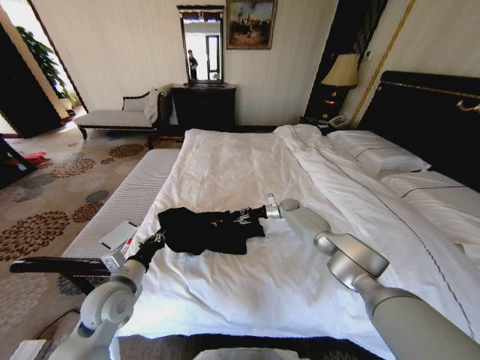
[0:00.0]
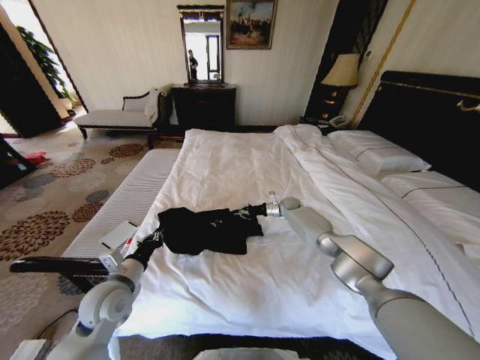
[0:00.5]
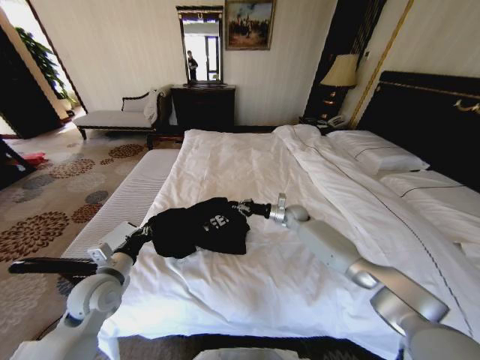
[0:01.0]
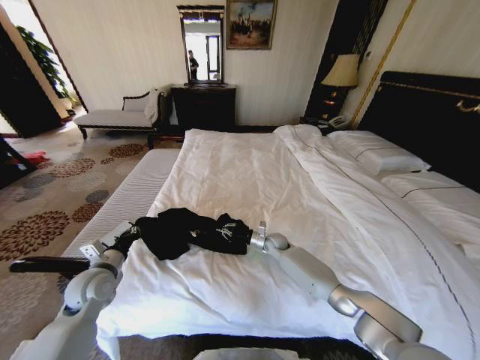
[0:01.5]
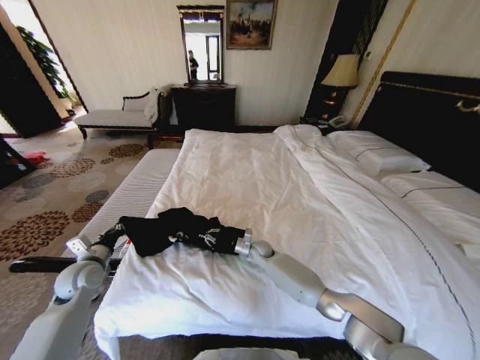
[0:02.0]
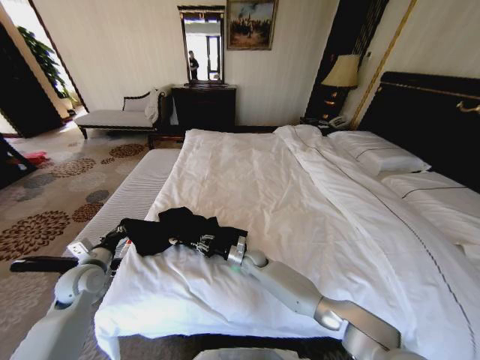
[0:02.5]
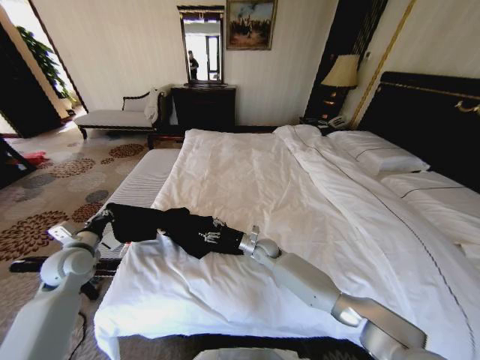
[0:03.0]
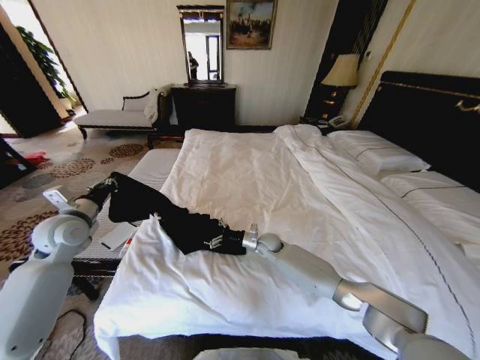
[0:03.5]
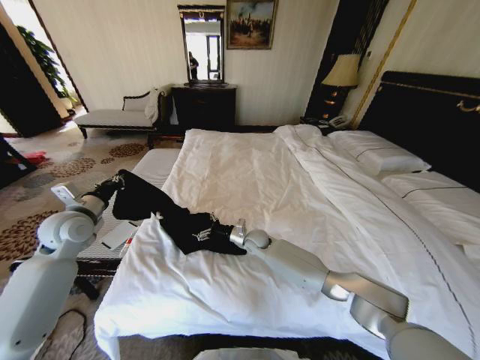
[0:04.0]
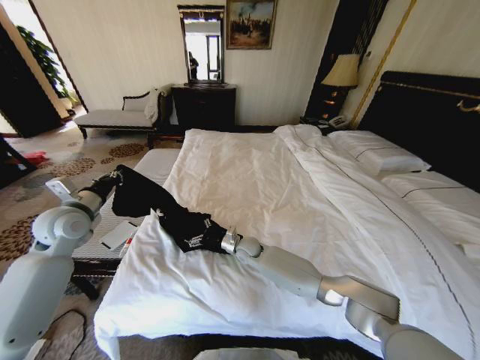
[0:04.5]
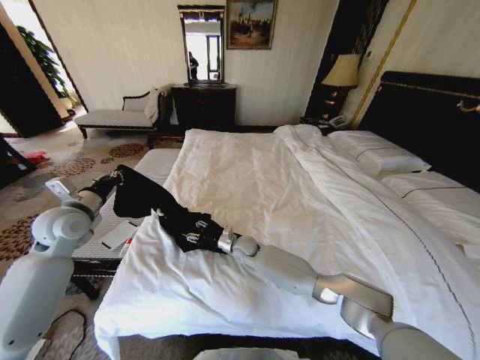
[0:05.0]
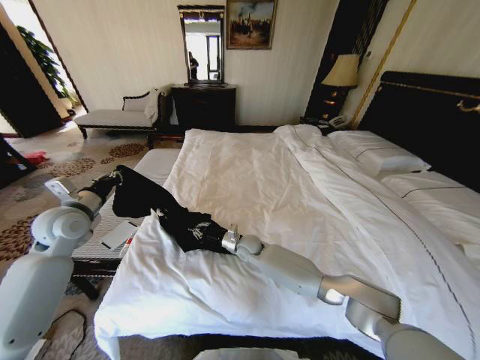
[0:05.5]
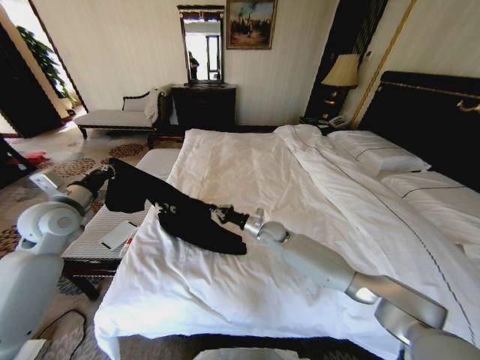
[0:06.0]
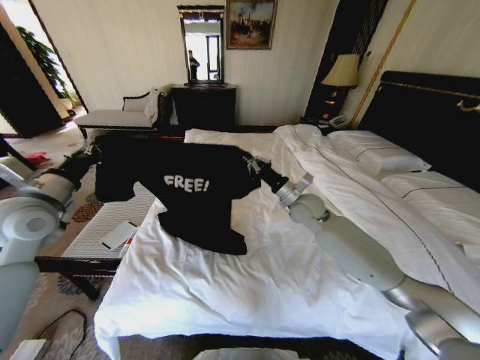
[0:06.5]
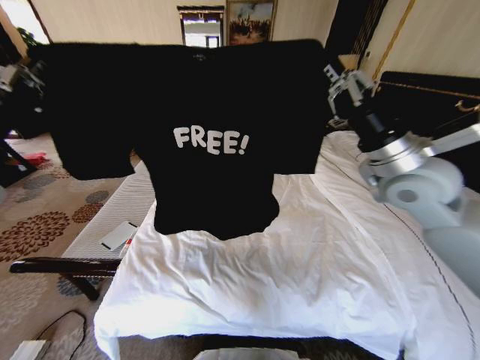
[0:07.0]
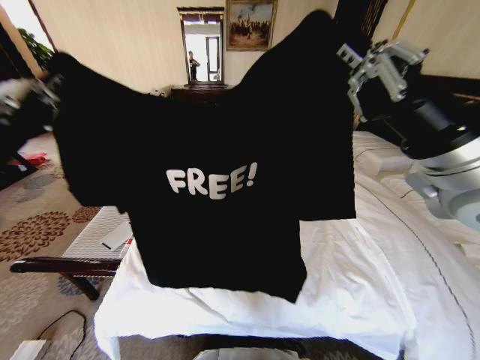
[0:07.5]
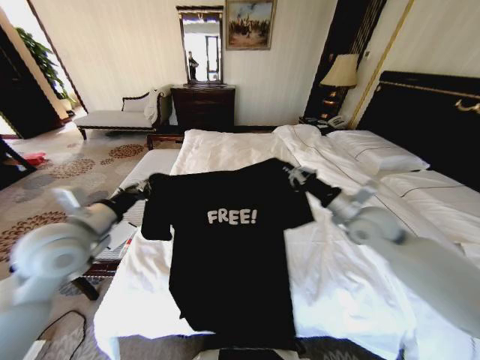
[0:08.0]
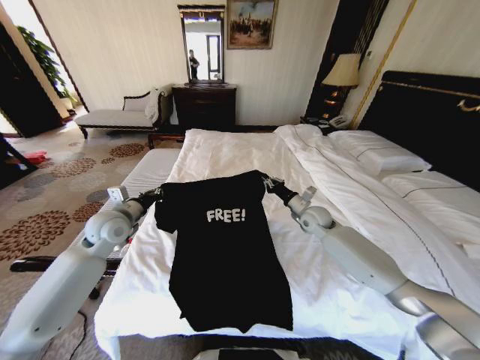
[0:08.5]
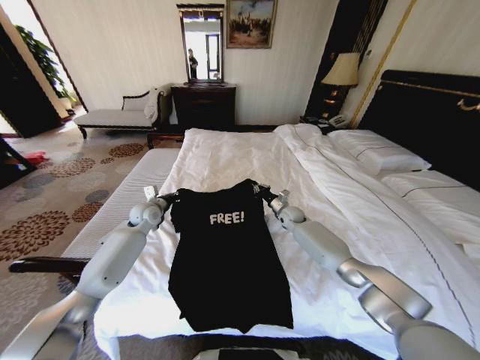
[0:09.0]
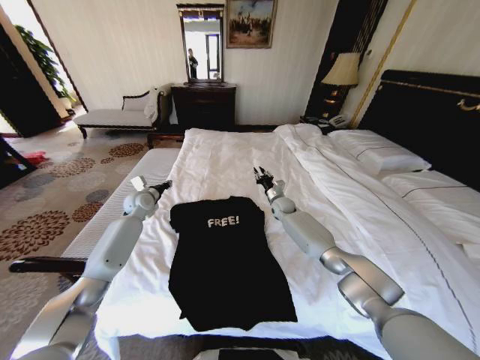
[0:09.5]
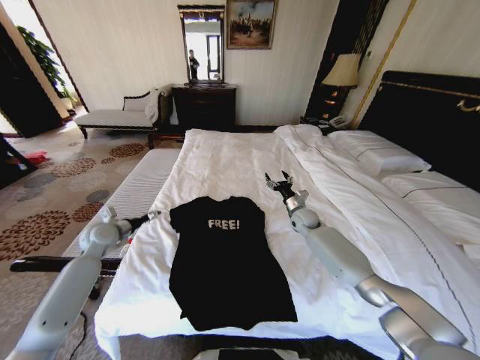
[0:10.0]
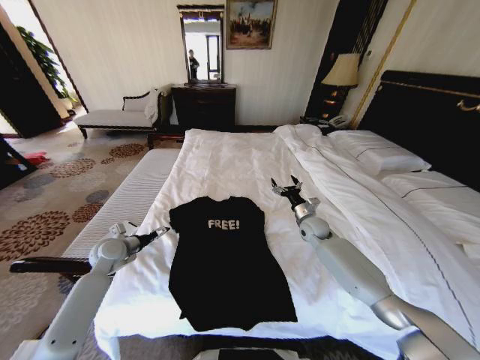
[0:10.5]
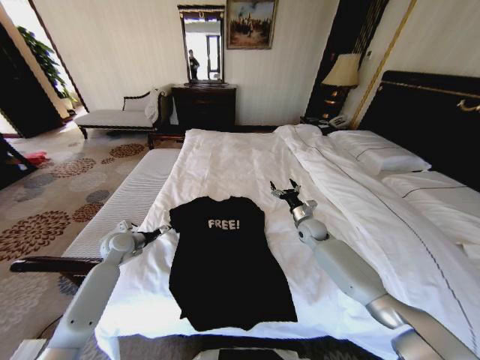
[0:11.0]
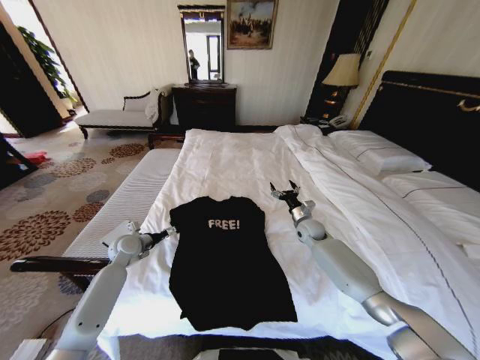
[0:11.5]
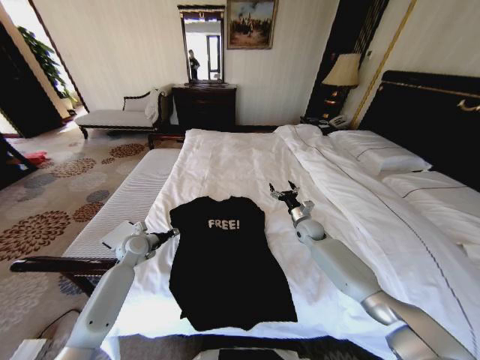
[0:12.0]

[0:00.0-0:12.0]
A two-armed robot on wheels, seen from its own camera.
Task of the whole recording: Fold the clothes on the bed.
0:00.0 to 0:02.0: The left gripper heads to the left and forward, covering about 15 cm. The right gripper goes approximately 25 cm backward, to the left and downward, and closes its fingers.
0:02.0 to 0:04.0: The left gripper goes some 15 cm upward and forward; the right gripper heads upward, covering approximately 5 cm, and opens.
0:04.0 to 0:06.0: The right gripper heads upward and to the right, covering about 10 cm, and closes up.
0:06.0 to 0:08.0: The left gripper shifts approximately 15 cm to the right and backward, while the right gripper travels to the right, upward and backward by approximately 30 cm.
0:08.0 to 0:10.0: The right gripper shifts approximately 25 cm downward and forward, and opens its fingers. The left gripper moves downward, forward and to the left, approximately 25 cm, and opens up.
0:10.0 to 0:12.0: The left gripper moves downward and to the right, about 10 cm, and closes up.

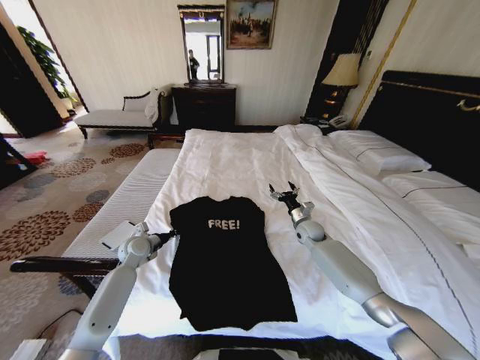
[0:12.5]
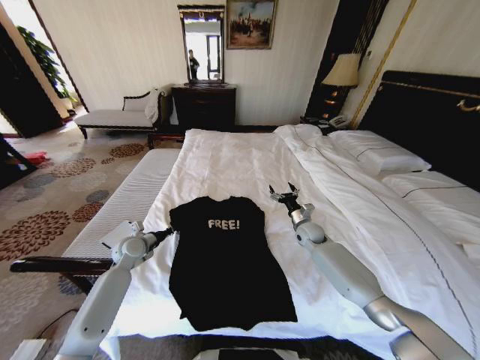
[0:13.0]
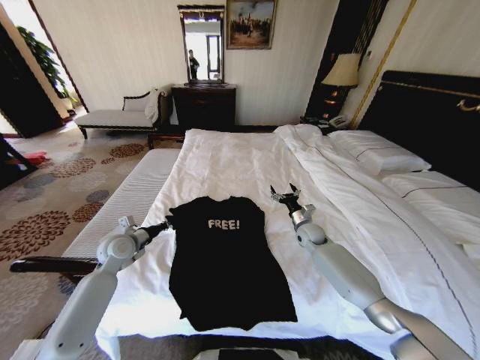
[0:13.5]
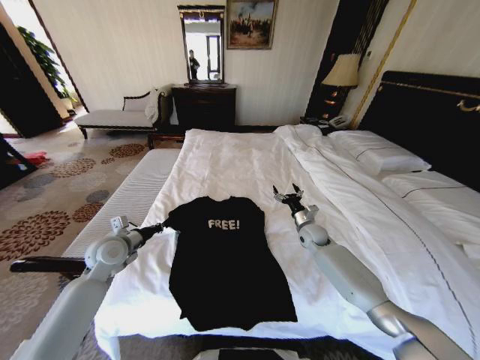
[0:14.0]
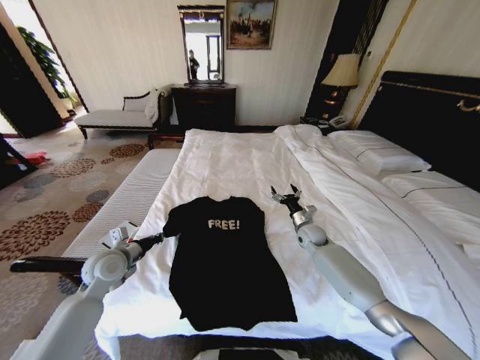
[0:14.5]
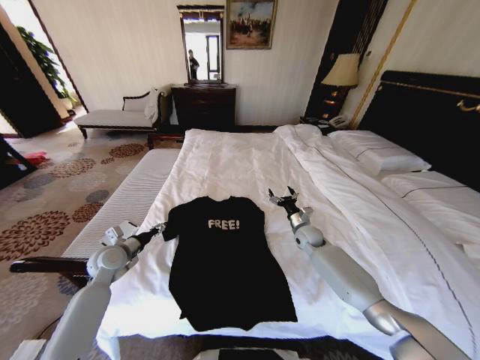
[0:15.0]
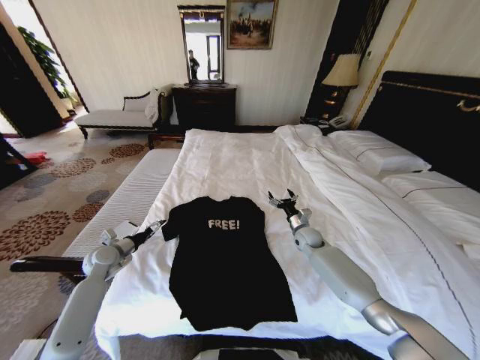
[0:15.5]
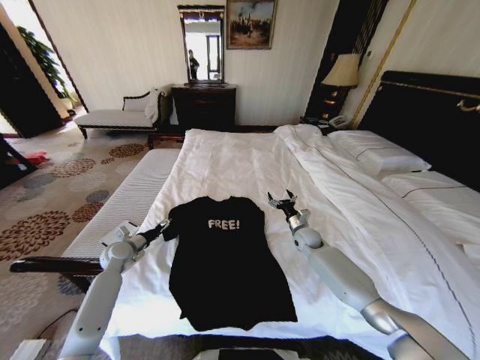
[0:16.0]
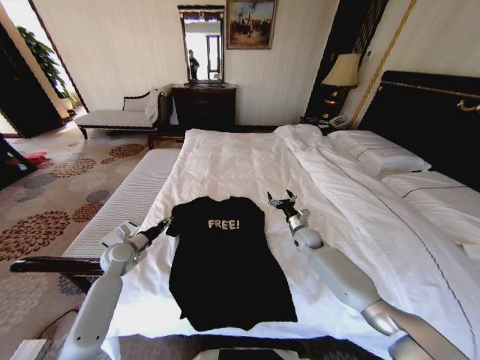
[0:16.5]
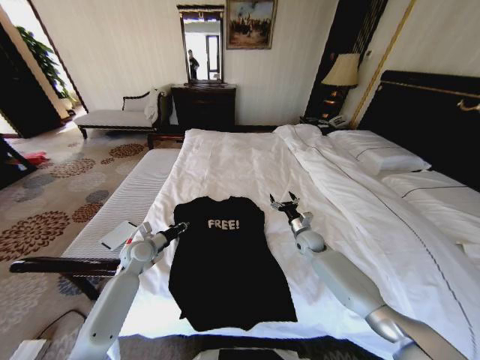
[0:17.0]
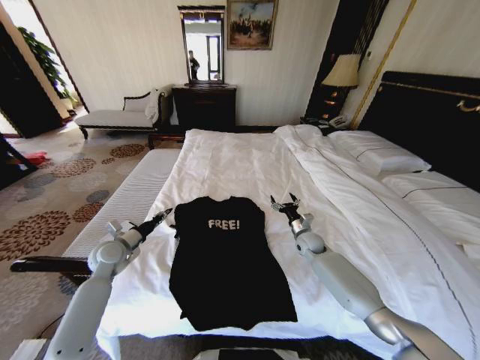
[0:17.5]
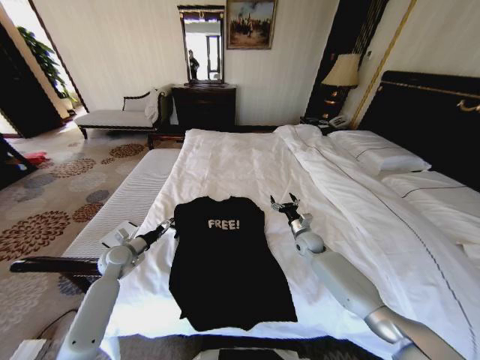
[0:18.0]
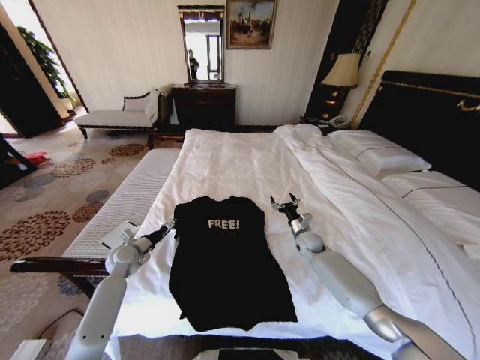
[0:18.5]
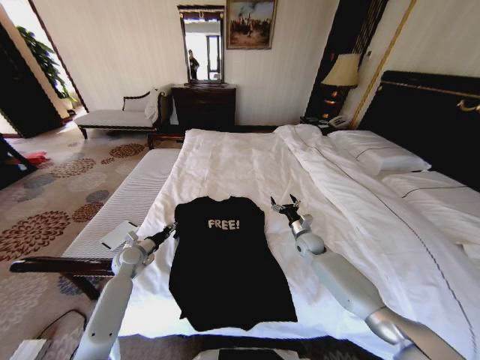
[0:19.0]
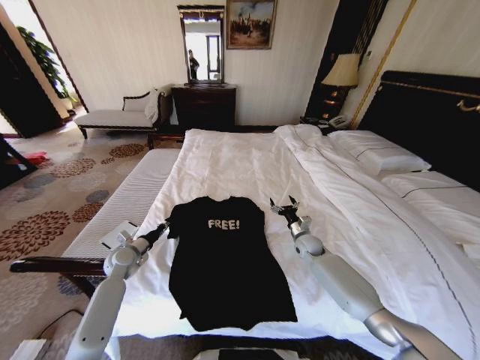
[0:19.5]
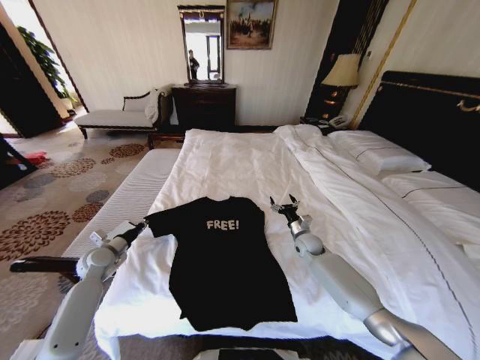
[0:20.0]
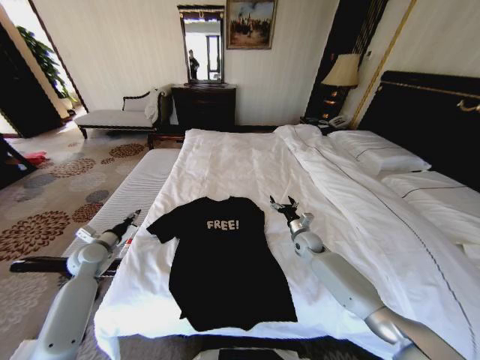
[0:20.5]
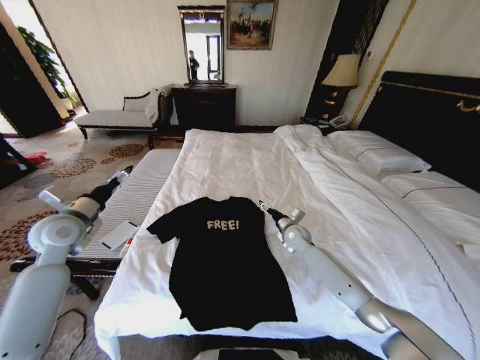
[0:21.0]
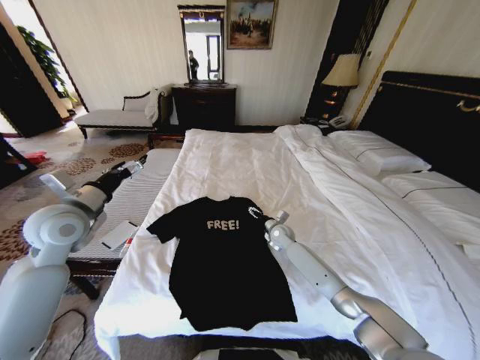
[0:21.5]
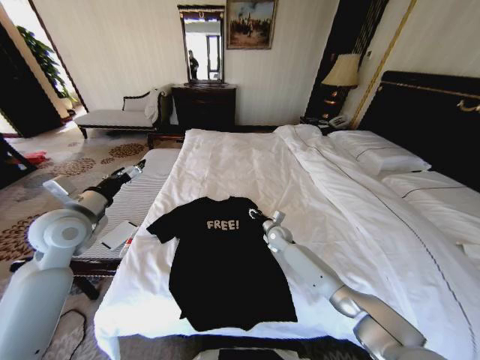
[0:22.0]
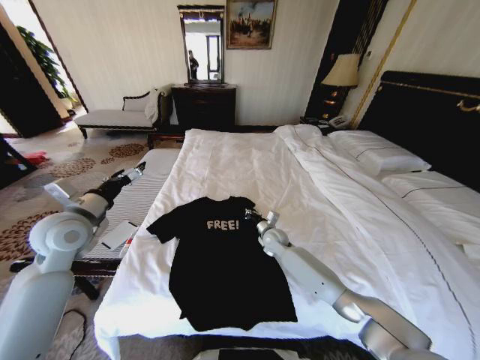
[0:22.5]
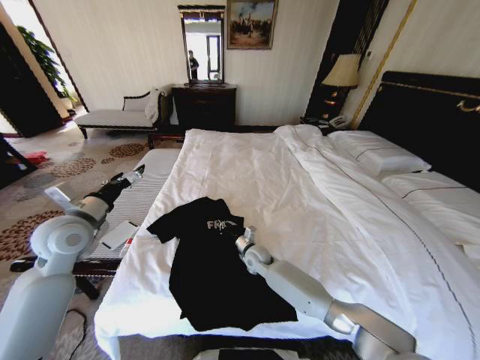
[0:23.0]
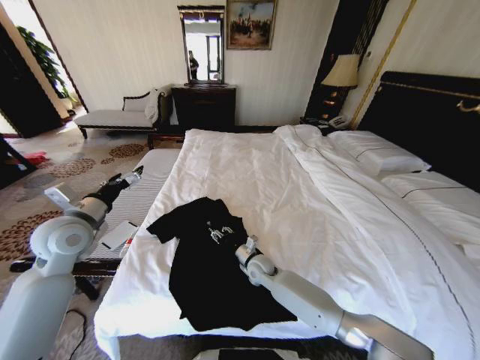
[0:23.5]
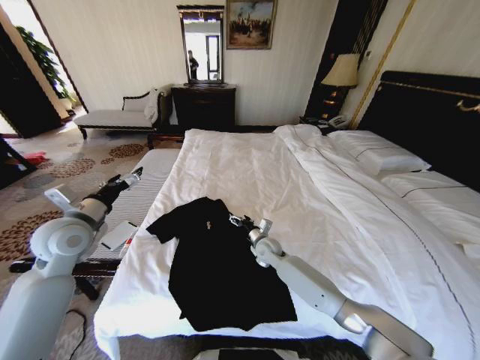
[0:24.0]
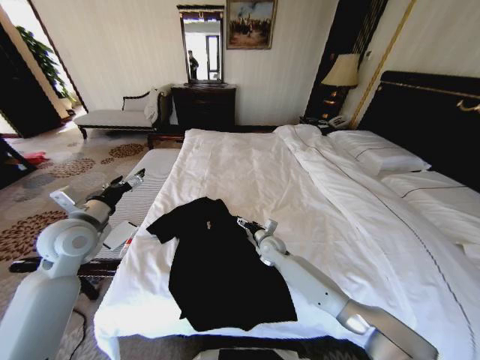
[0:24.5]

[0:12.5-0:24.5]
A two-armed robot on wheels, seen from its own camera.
Task of the whole recording: Fold the clothes on the bed.
0:12.5 to 0:14.5: The left gripper heads backward and upward, covering approximately 15 cm.
0:14.5 to 0:16.5: The left gripper goes about 10 cm downward and forward, and opens up.
0:16.5 to 0:18.5: The left gripper opens its fingers.
0:18.5 to 0:20.5: The left gripper moves to the left and upward, about 10 cm, and closes its fingers.
0:20.5 to 0:22.5: The right gripper moves to the left, about 10 cm, and closes up, while the left gripper travels upward and to the right by approximately 20 cm, and opens.
0:22.5 to 0:24.5: The right gripper opens up.

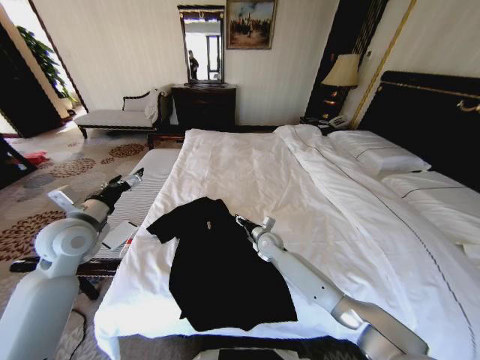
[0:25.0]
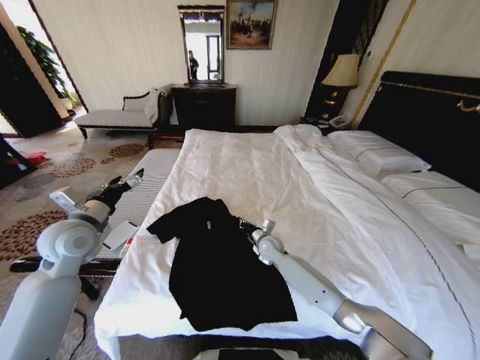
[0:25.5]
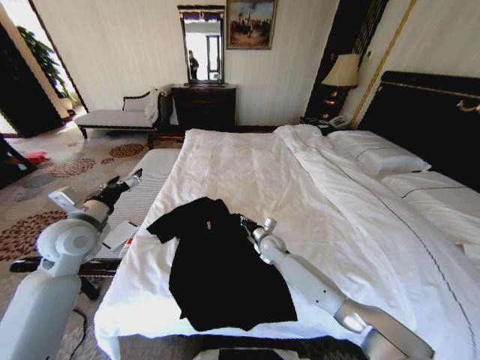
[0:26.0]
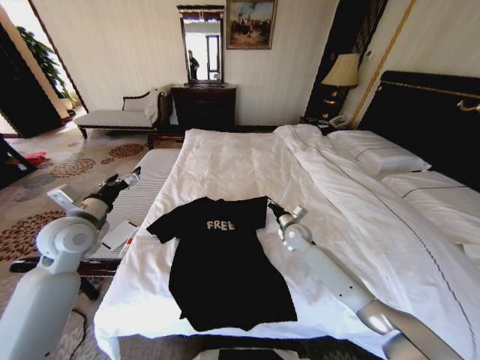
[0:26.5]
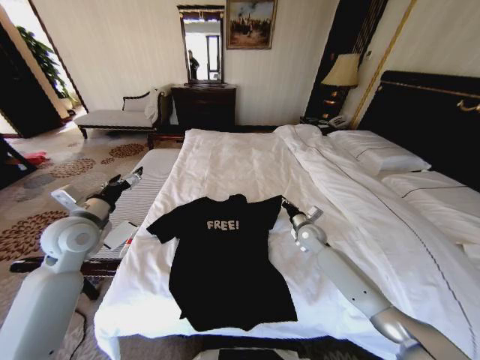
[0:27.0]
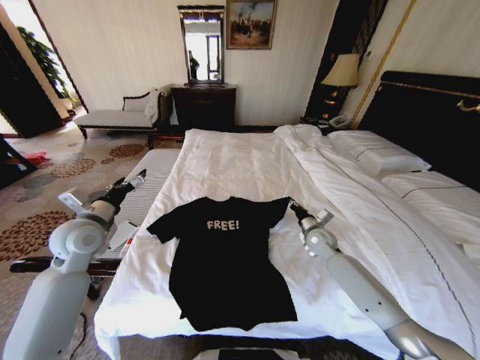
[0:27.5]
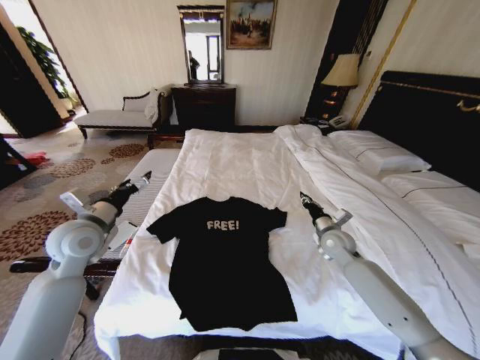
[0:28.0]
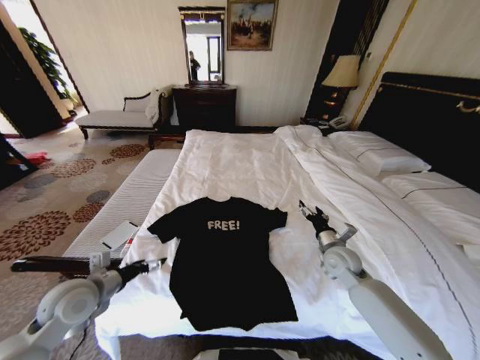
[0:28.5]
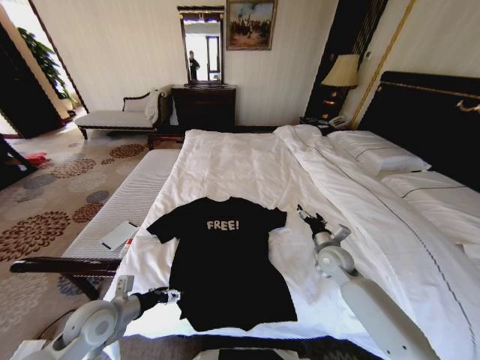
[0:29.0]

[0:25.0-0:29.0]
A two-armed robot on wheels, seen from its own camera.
Task of the whole recording: Fold the clothes on the bed.
0:25.0 to 0:27.0: The right gripper travels to the right by some 15 cm, and closes.
0:27.0 to 0:29.0: The right gripper travels backward by some 10 cm, and opens. Meanwhile the left gripper shifts roughly 20 cm downward and backward.
